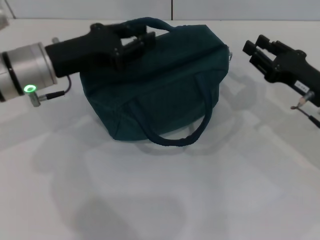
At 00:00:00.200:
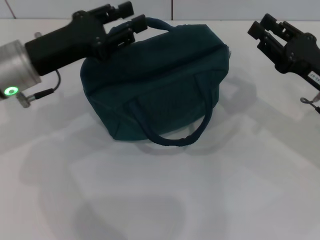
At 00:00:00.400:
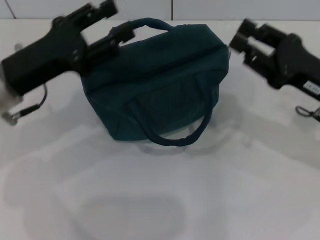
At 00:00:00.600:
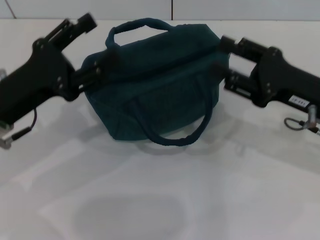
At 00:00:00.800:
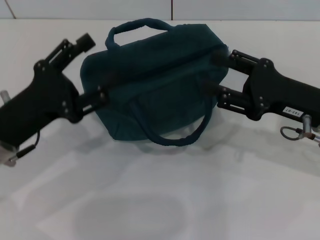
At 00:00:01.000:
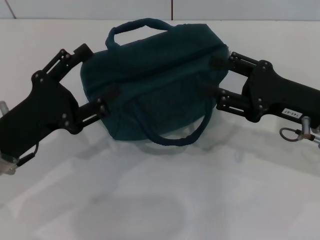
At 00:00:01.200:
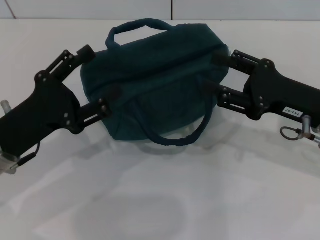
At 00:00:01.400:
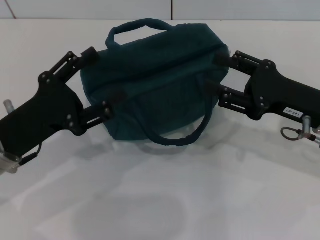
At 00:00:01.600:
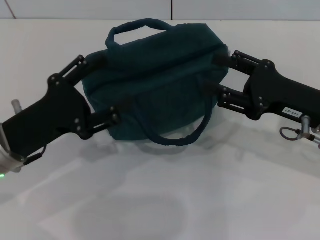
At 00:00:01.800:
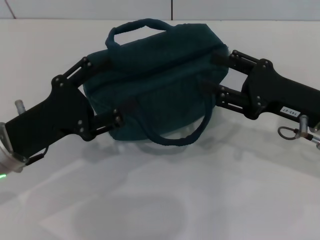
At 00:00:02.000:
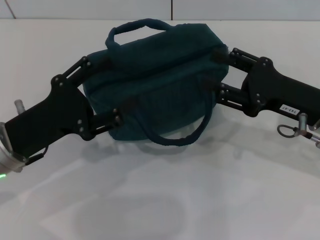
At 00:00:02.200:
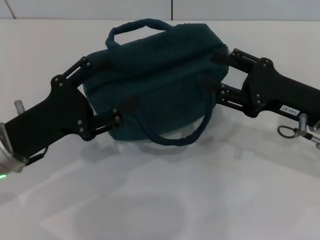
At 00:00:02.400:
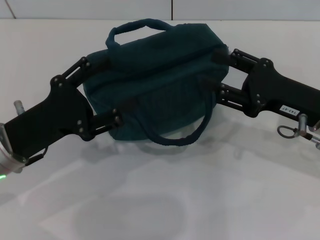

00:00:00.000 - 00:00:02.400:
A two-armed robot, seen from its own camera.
00:00:00.000 - 00:00:01.200: The right gripper shifts by roughly 5 cm, and opens. The left gripper is displaced backward by about 10 cm, and opens.
00:00:01.200 - 00:00:02.400: There are only small adjustments of the grippers.
